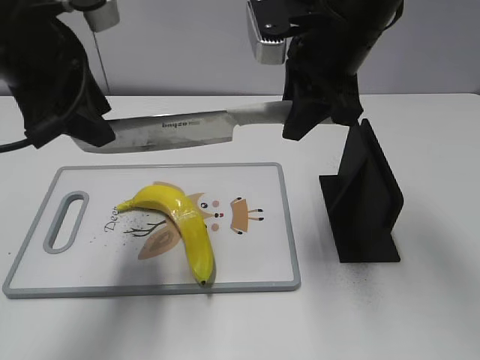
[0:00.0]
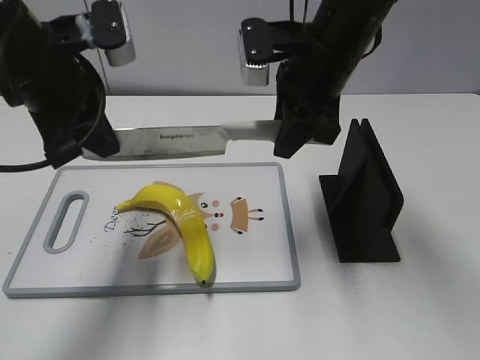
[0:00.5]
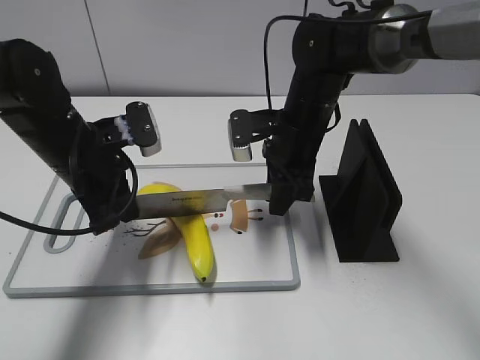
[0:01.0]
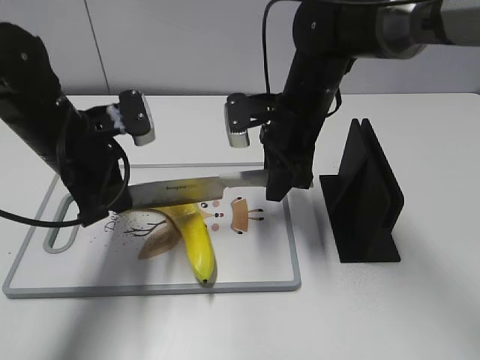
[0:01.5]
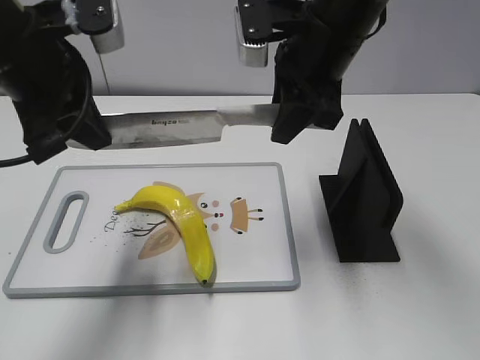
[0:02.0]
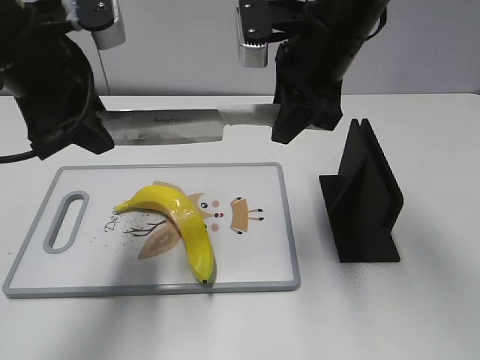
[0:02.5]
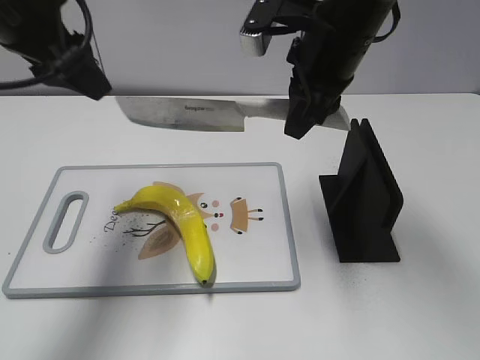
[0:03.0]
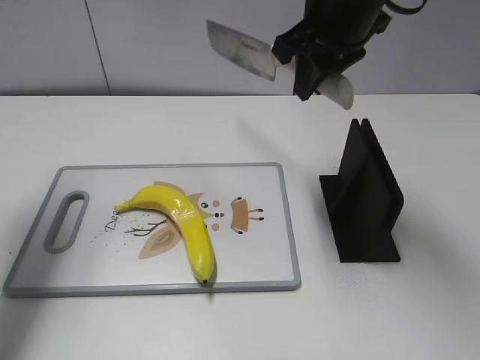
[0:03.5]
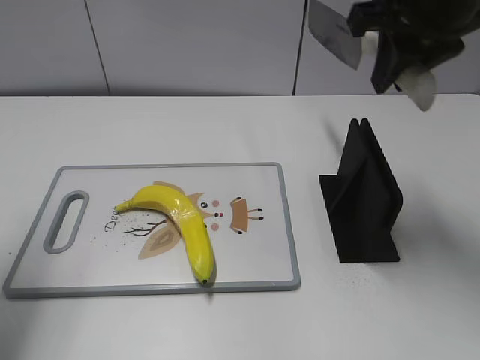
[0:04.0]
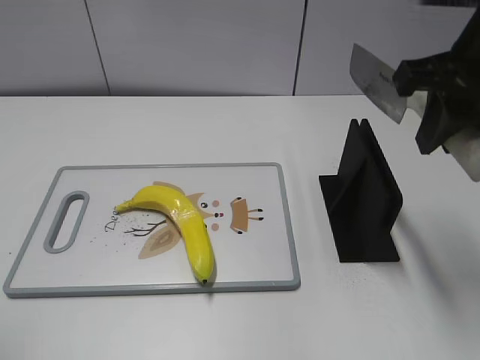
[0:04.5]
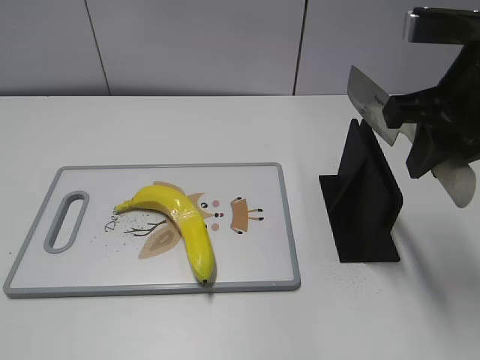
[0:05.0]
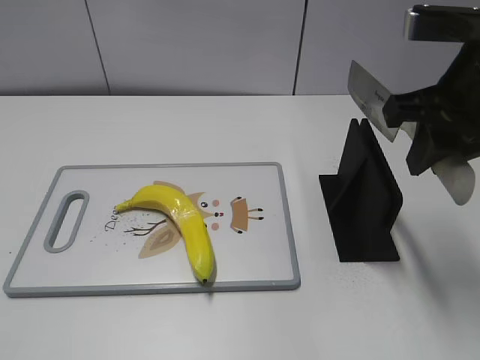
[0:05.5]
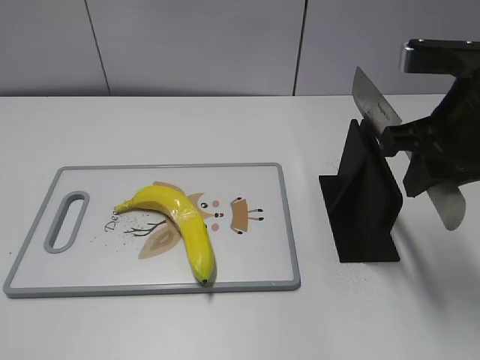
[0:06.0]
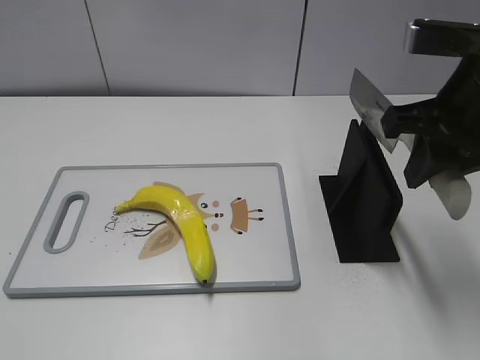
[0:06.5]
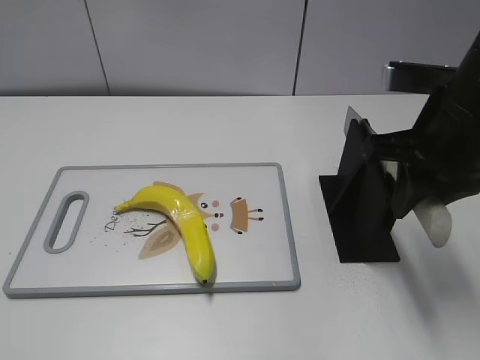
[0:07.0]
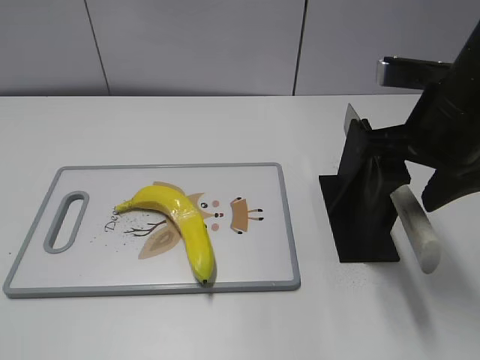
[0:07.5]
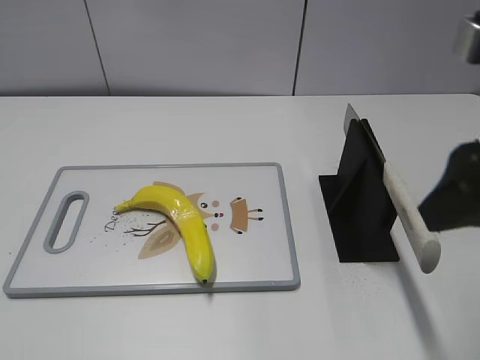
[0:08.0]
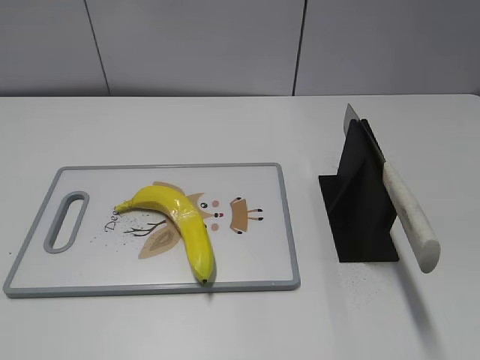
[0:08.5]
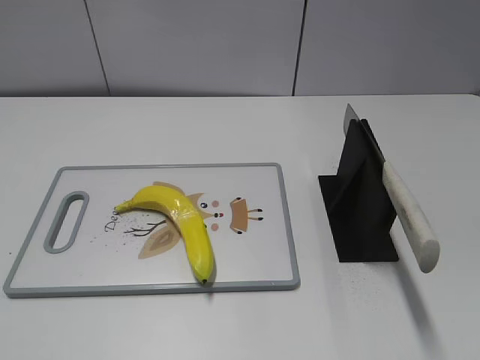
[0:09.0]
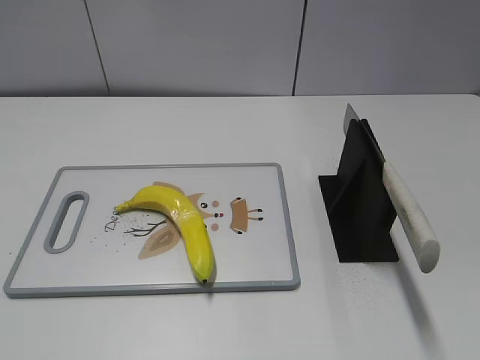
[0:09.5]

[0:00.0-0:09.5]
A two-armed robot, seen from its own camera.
Task of the whole recording: cut plastic banana.
Step, 0:00.0 to 0:02.0: Lift the knife with your right hand.
Step, 0:03.0 to 0:03.5: Cut the banana with your right hand.
Step, 0:04.0 to 0:05.0: Lift the knife with your right hand.
Step, 0:05.5 to 0:09.5: Place the knife on the storage rack with your right hand.
0:00.0 to 0:02.0: The right gripper travels downward and back again, approximately 15 cm each way. The left gripper travels downward and back again, approximately 15 cm each way, and closes.
0:02.0 to 0:04.0: The right gripper heads to the right and upward, covering some 10 cm. Meanwhile the left gripper shifts about 15 cm to the left and backward, and opens up.
0:04.0 to 0:05.5: The right gripper shifts about 5 cm backward; the left gripper heads backward, covering roughly 25 cm.
0:05.5 to 0:07.5: The right gripper opens up.
0:07.5 to 0:09.5: The right gripper shifts some 30 cm backward and to the right.
